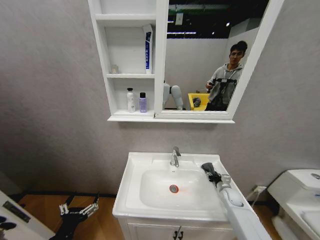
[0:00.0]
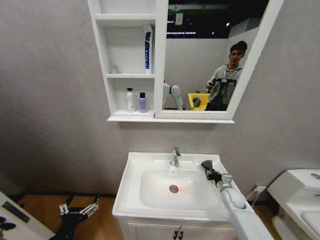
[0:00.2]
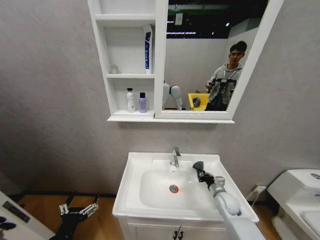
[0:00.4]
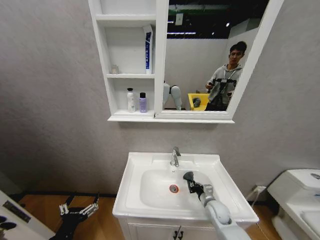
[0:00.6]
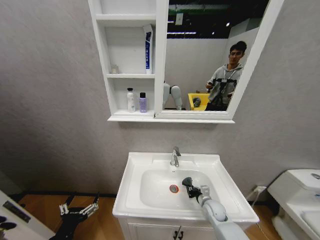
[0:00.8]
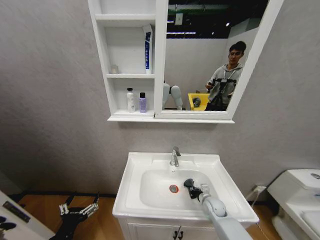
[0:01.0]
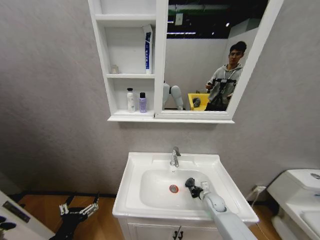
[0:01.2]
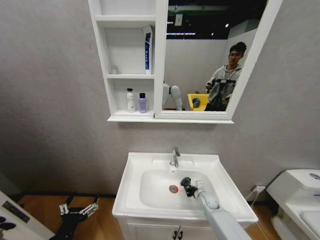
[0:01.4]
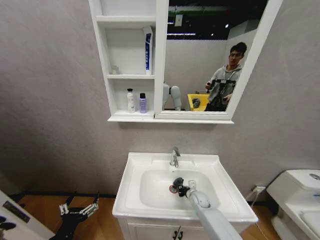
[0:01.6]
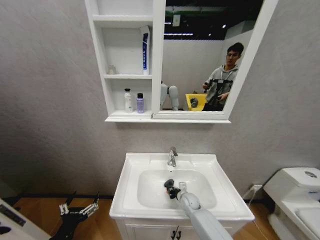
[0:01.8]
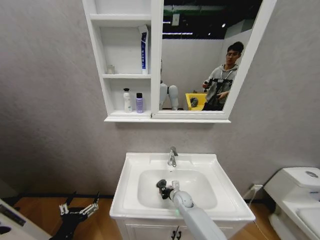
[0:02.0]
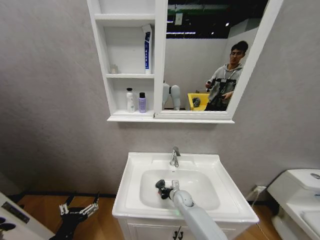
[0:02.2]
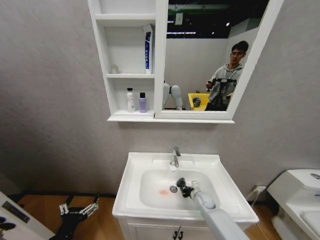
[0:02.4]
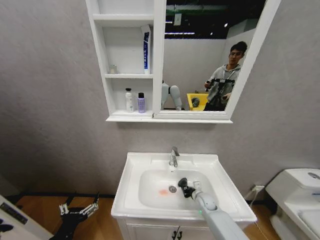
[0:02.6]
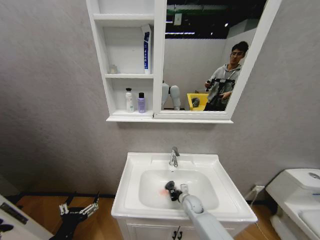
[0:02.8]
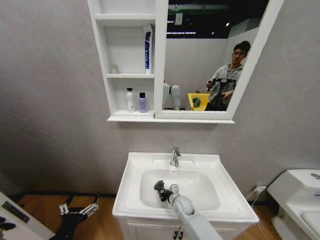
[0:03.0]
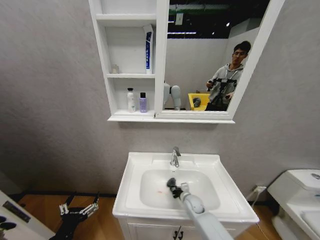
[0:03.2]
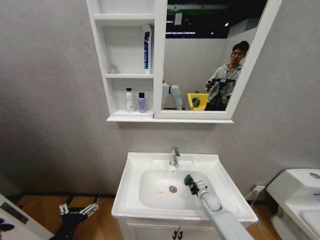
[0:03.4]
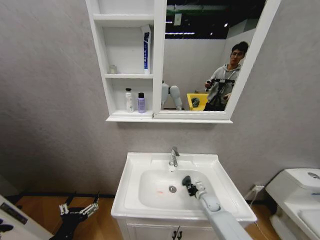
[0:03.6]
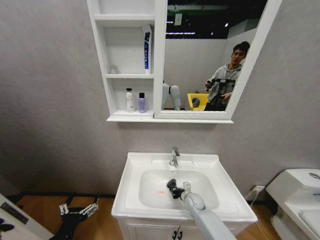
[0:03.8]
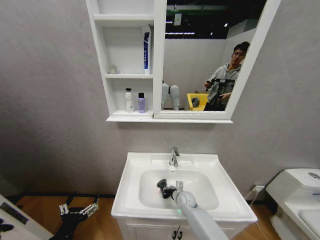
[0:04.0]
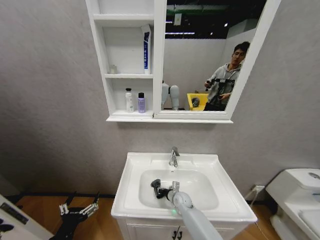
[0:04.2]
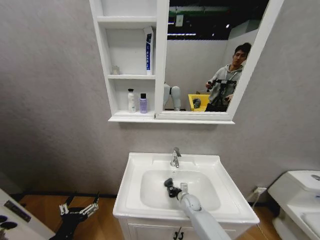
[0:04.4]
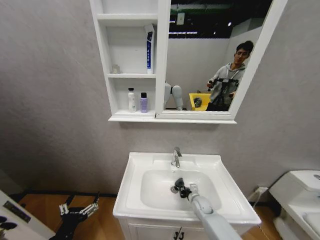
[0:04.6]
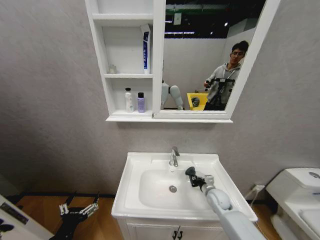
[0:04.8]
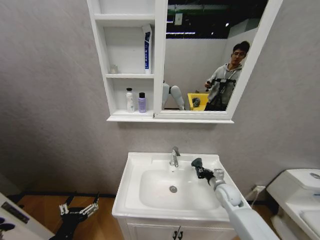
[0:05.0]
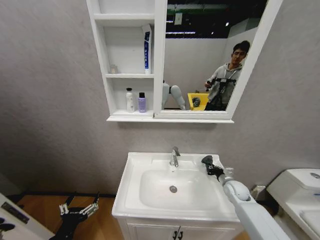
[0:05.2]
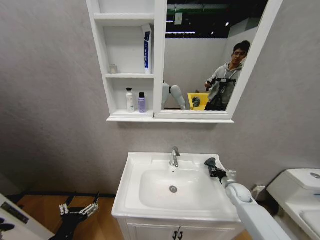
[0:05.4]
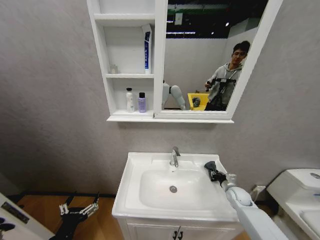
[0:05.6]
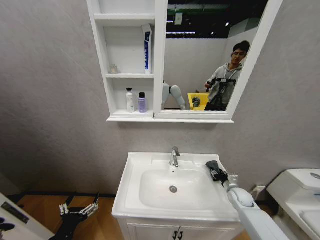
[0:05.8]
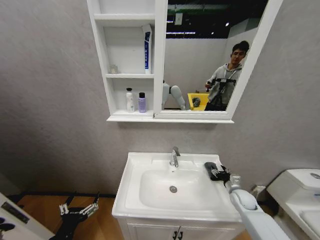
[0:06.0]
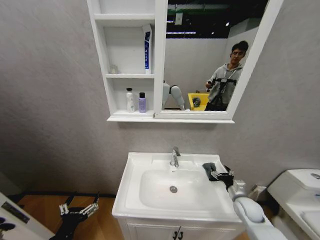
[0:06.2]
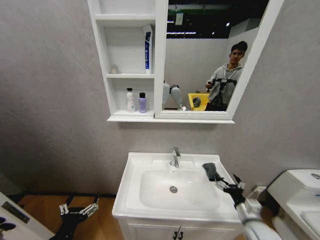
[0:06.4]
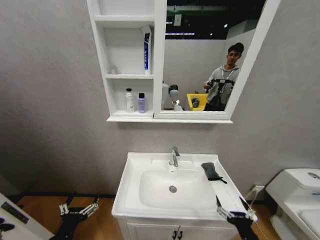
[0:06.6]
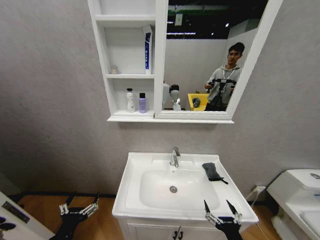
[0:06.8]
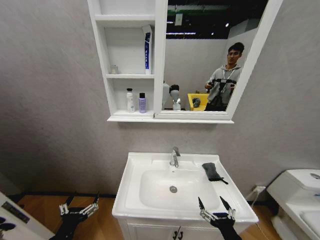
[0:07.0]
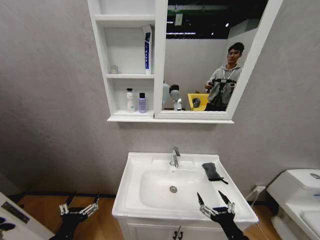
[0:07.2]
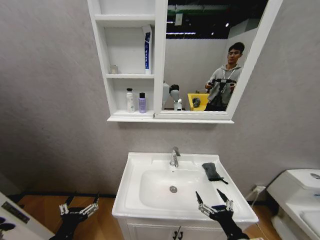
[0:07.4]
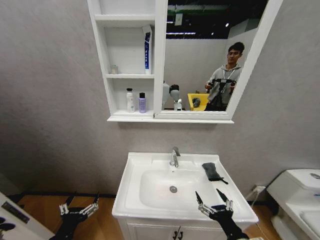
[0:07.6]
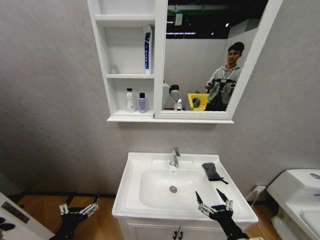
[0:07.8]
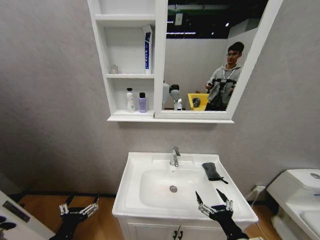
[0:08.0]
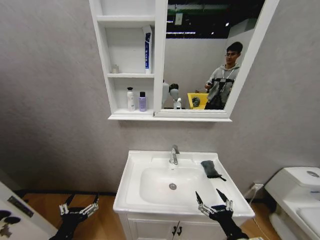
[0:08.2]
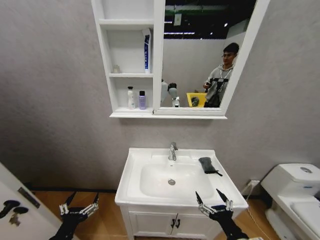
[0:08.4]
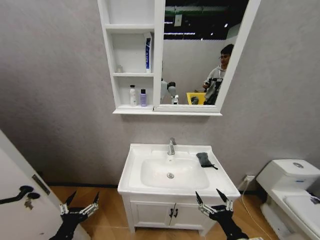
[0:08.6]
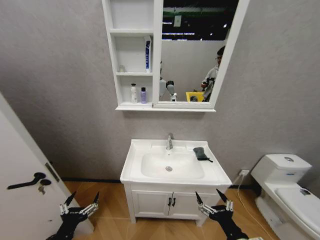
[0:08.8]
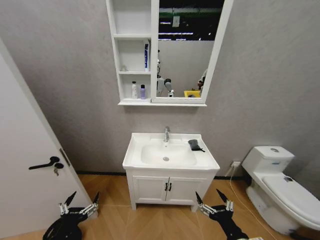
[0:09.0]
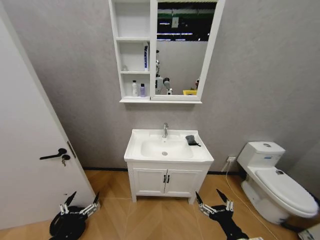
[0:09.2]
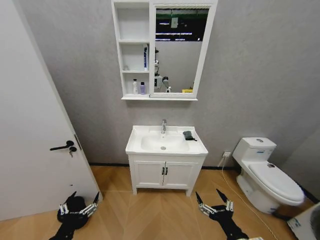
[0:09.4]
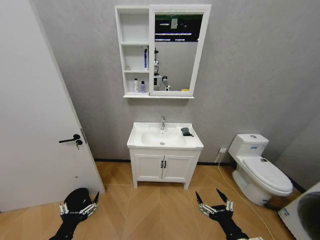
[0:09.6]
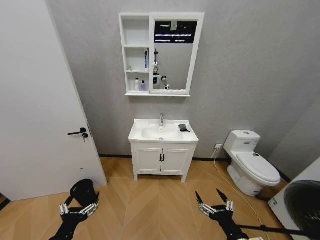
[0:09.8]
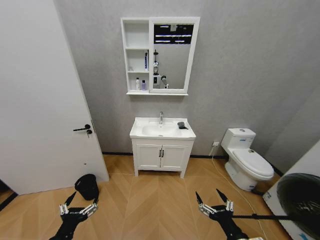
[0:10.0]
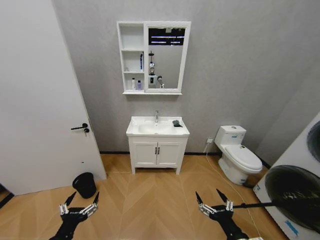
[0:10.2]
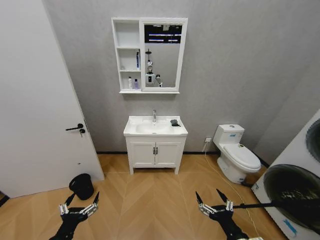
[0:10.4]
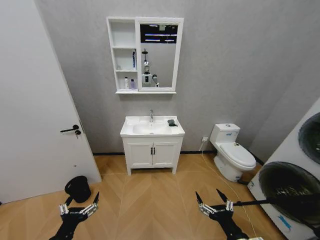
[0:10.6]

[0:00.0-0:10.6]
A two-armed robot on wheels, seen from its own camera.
Task of the whole recording: Move facial cleanser and shampoo from washbasin to cabinet, then wipe washbasin with towel.
0:00.0 to 0:01.6: The right gripper shifts roughly 15 cm to the left, and closes its fingers.
0:01.6 to 0:03.0: The right gripper swings left and right, approximately 15 cm each way, with 2 reversals.
0:03.0 to 0:04.6: The right gripper goes left and right, some 15 cm each way, reversing 2 times.
0:04.6 to 0:06.0: The right gripper moves to the right and upward, approximately 20 cm, and opens up.
0:06.0 to 0:07.6: The right gripper moves backward and to the left, about 35 cm, and opens up.

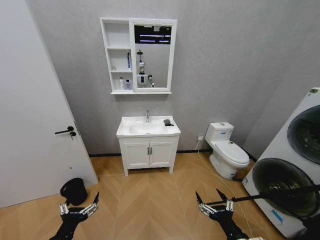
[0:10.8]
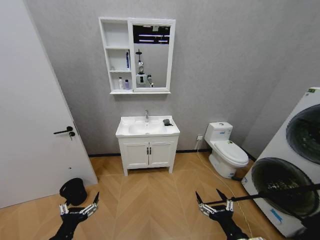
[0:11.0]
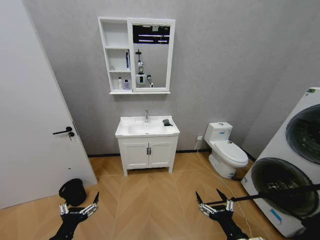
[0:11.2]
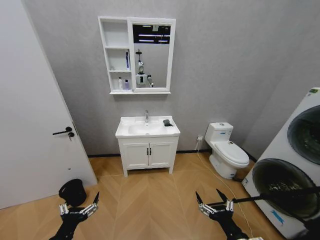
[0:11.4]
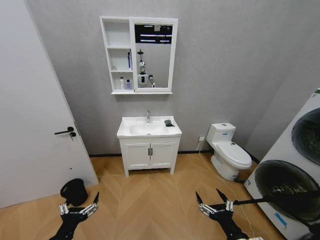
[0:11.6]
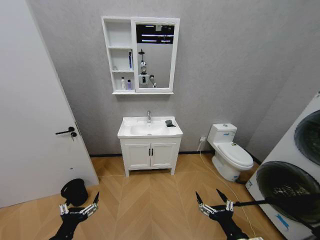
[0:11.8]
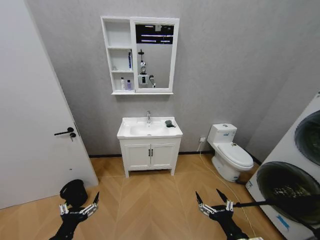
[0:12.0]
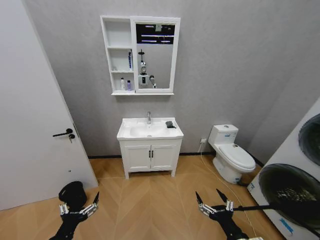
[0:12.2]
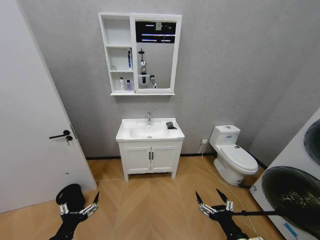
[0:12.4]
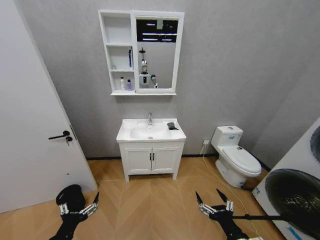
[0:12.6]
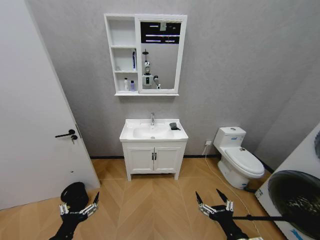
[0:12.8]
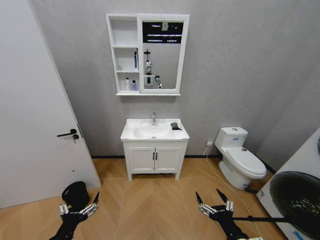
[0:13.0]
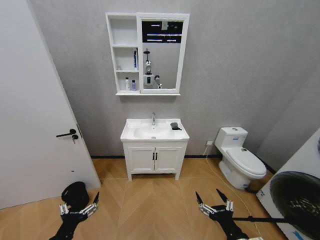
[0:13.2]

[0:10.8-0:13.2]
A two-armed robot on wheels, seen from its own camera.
Task of the whole recording: Move facial cleanser and shampoo from washbasin to cabinet, then wipe washbasin with towel.
0:10.8 to 0:13.2: Both grippers stay put.
